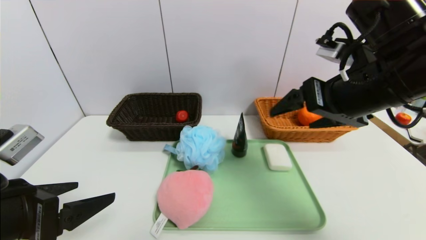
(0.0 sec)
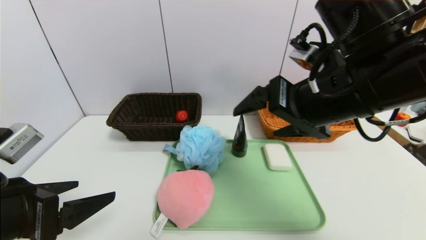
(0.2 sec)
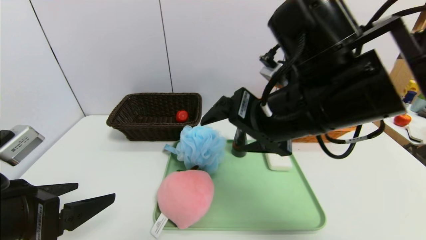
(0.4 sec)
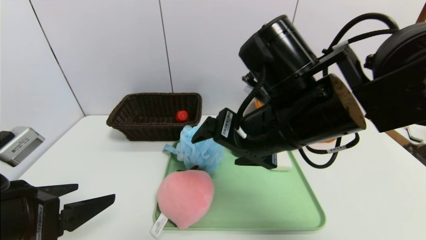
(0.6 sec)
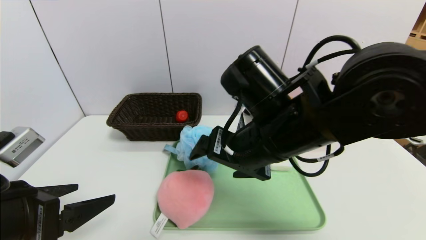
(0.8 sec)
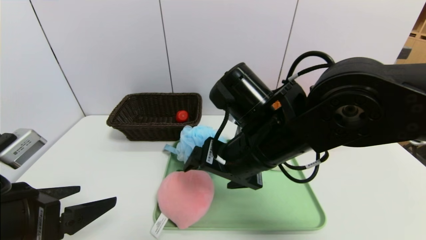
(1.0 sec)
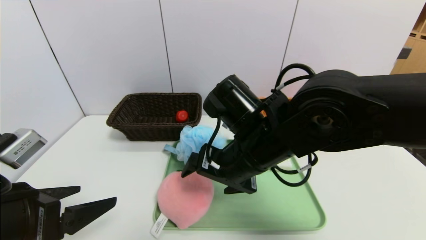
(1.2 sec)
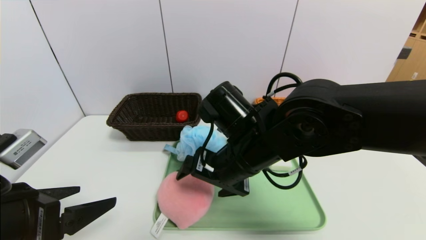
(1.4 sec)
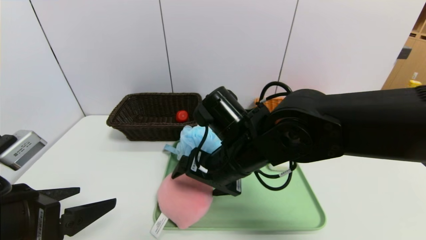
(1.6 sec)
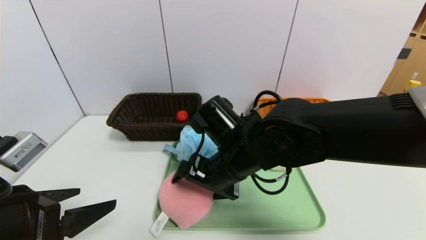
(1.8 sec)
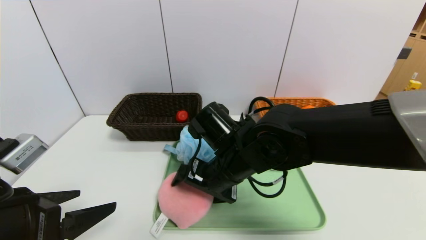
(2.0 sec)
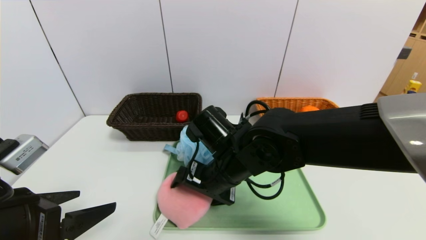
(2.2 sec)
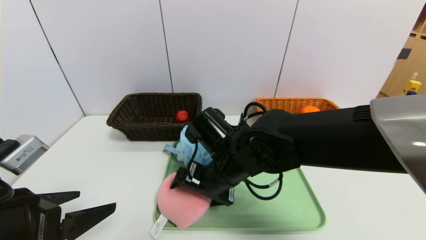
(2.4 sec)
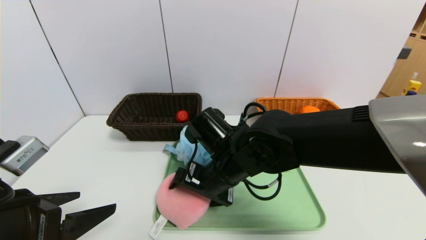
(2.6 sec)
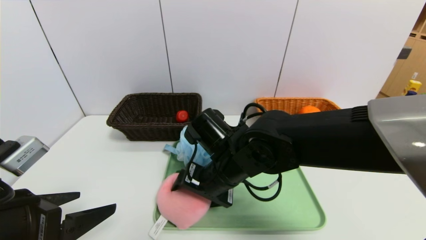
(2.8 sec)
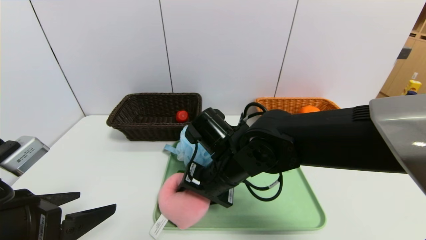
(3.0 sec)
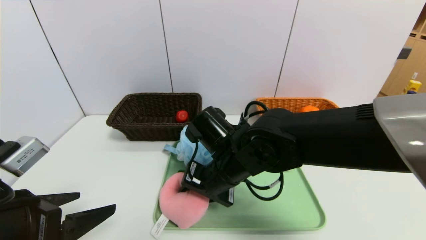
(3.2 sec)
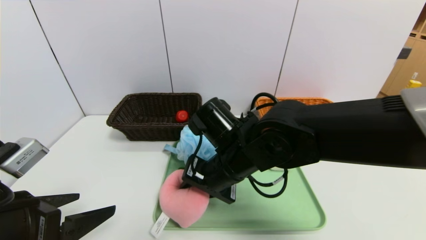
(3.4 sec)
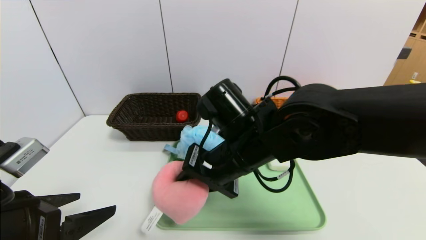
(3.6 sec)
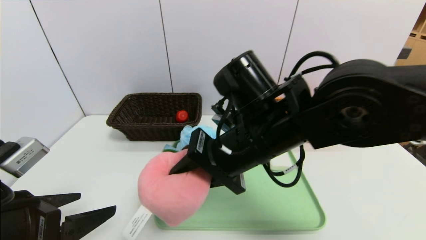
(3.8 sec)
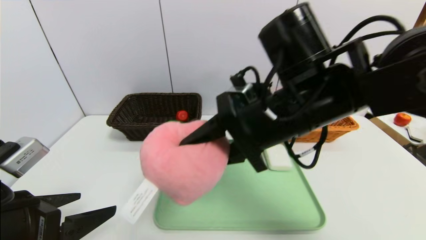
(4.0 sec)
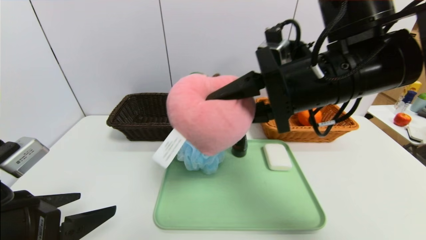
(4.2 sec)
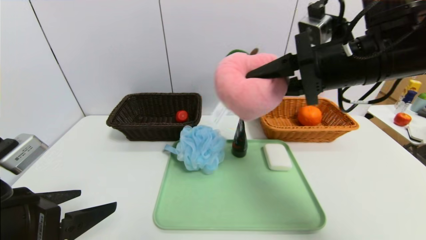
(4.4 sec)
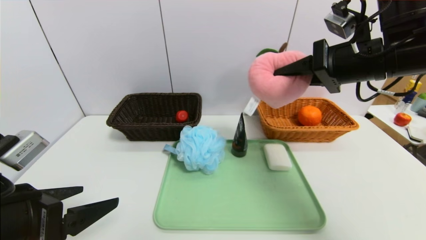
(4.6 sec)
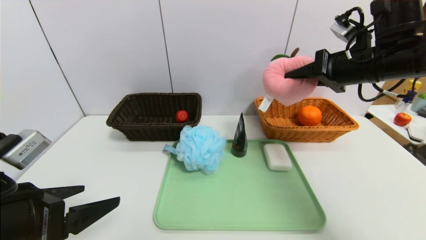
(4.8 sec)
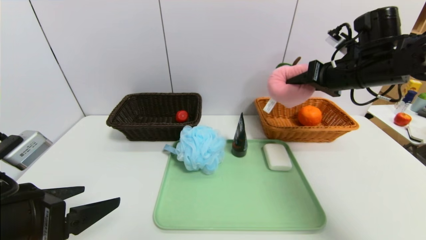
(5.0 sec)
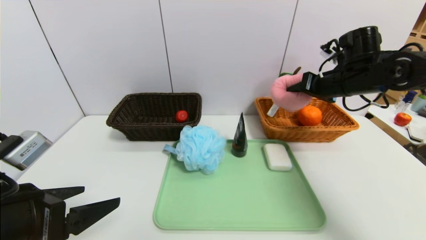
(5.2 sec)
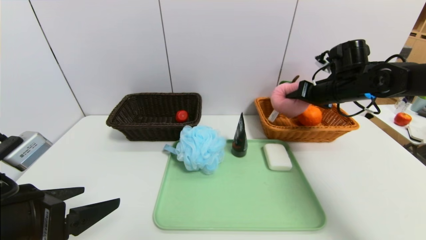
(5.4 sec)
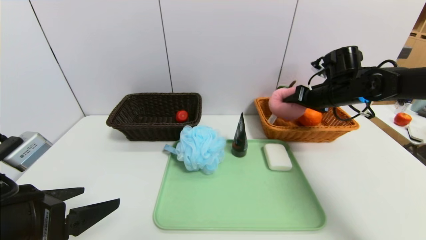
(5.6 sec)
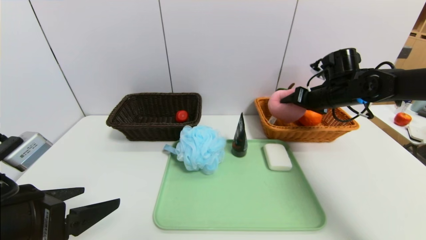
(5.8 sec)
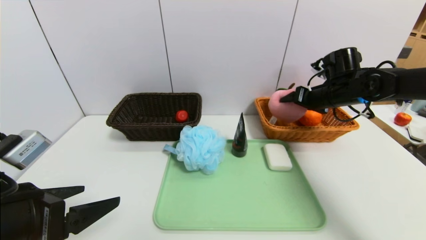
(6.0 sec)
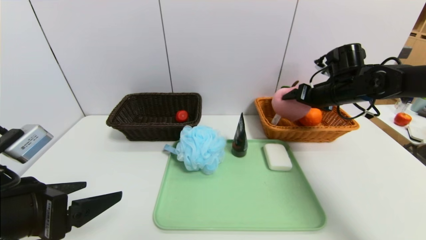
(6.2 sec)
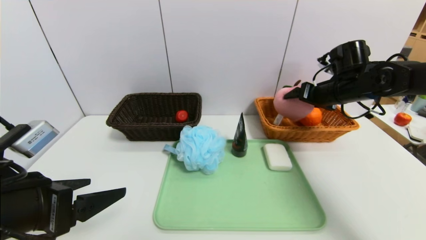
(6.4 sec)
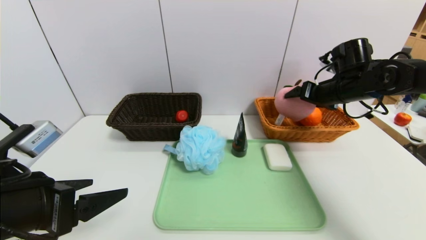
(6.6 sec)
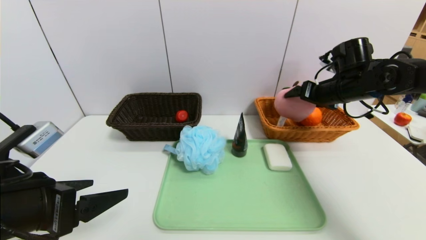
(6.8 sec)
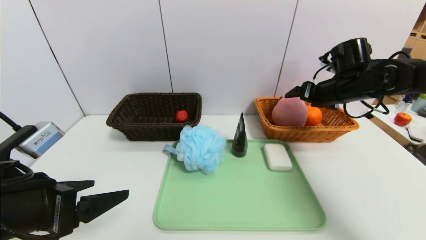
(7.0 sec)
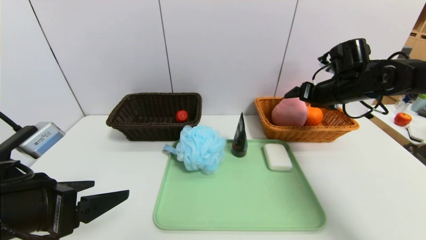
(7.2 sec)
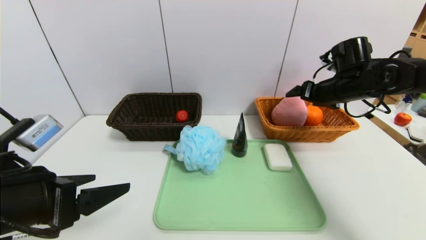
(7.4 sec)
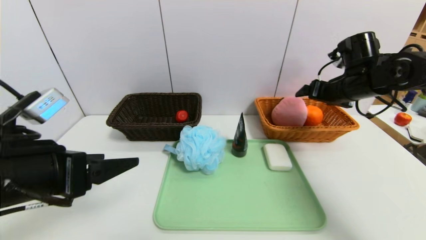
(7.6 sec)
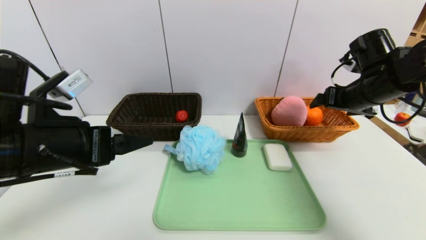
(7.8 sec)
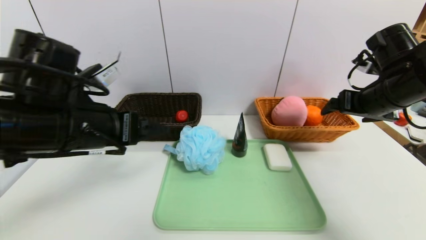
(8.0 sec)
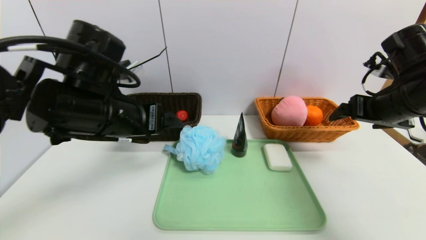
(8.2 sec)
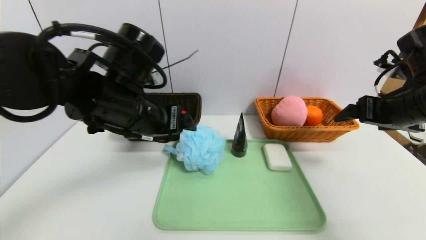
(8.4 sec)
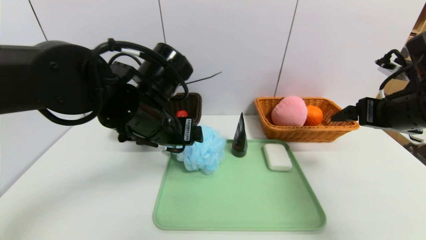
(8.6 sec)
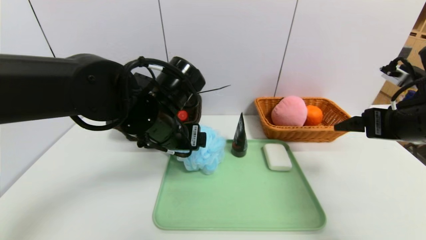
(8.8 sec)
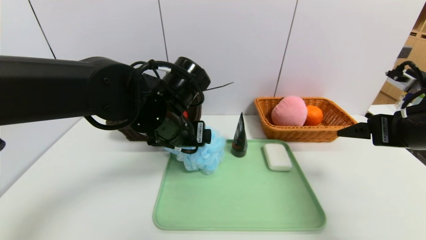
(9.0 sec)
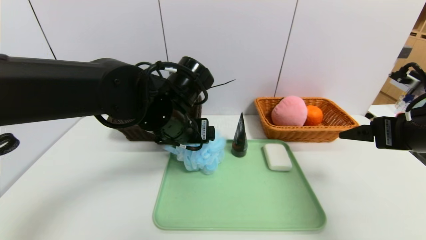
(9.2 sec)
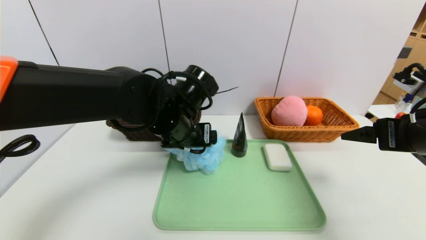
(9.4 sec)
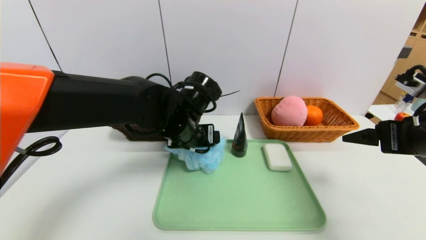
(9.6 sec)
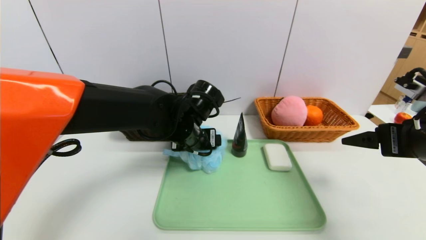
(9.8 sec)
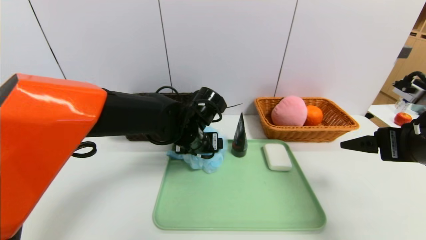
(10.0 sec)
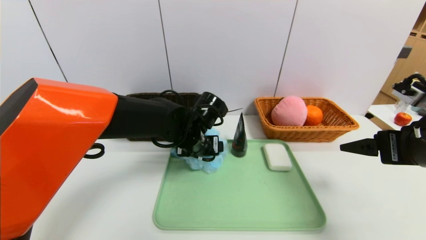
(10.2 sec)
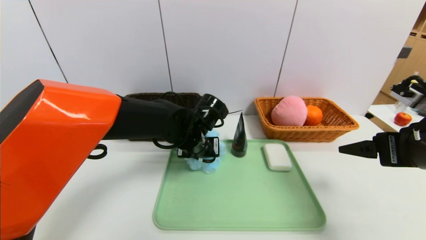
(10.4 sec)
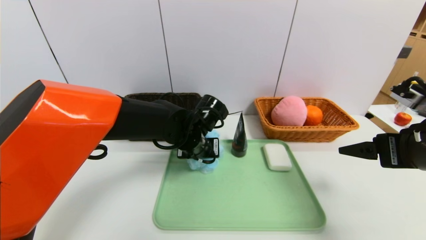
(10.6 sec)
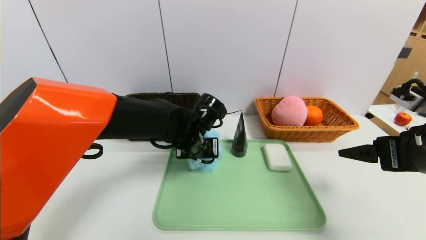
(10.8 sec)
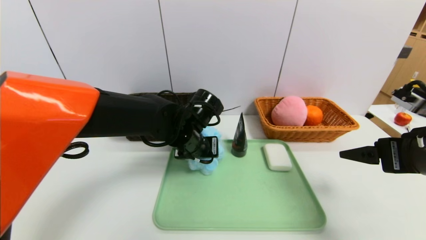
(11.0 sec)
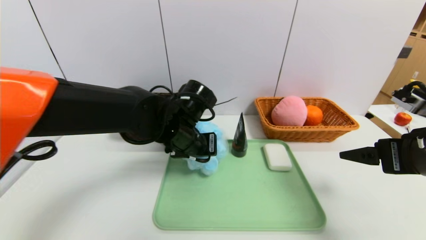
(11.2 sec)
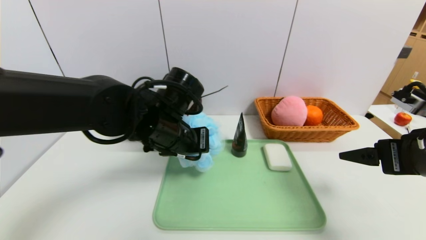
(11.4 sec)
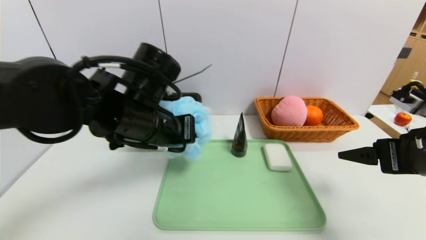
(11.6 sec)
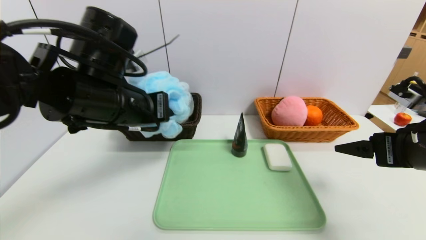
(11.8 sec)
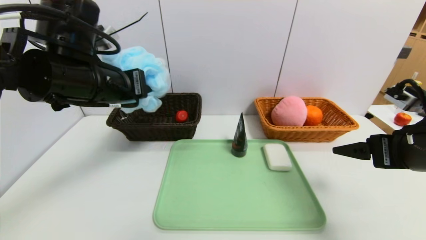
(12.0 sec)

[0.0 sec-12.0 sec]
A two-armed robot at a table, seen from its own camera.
Task of the whole recording: place the food in the right basket with the right gripper, and place the non food items in the left basket with the left gripper.
Step, 0.0 sec to 7.0 sec: Grasp the peach and put it in the right basket.
0.0 sec to 1.6 sec: The right gripper goes some 20 cm to the left and downward.
1.6 sec to 3.0 sec: The right gripper closes up.
3.0 sec to 4.4 sec: The right gripper shifts some 25 cm to the right and upward.
4.4 sec to 6.0 sec: The right gripper shifts about 20 cm forward, downward and to the right, and opens up.
6.0 sec to 7.6 sec: The left gripper shifts by roughly 5 cm.
7.6 sec to 9.0 sec: The right gripper heads backward, covering roughly 15 cm; the left gripper goes some 20 cm to the right and forward.
9.0 sec to 10.4 sec: The left gripper travels downward and forward by roughly 10 cm, and closes up.
10.4 sec to 12.0 sec: The left gripper goes some 25 cm upward, to the left and backward, and closes its fingers.

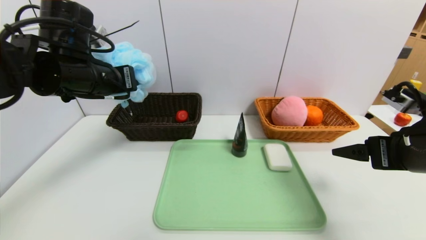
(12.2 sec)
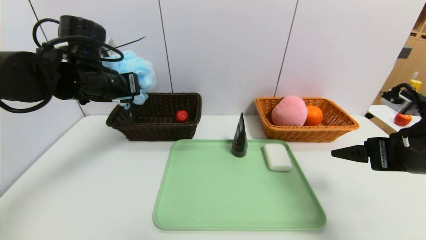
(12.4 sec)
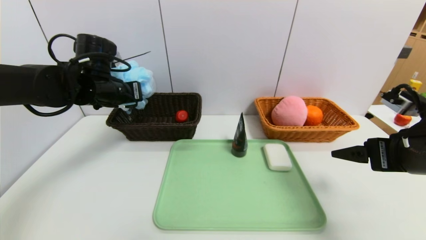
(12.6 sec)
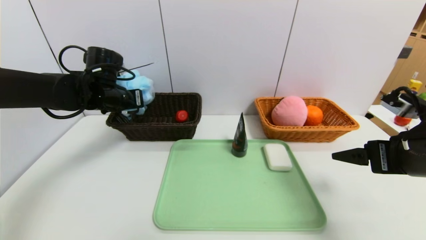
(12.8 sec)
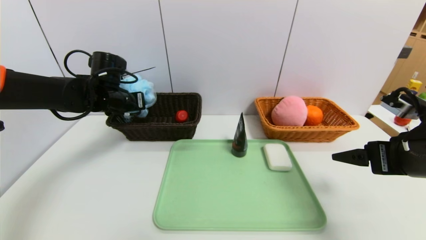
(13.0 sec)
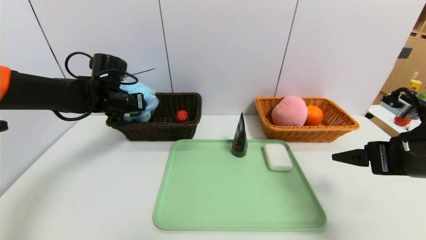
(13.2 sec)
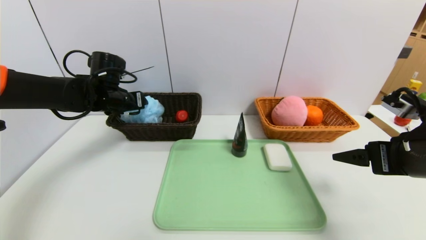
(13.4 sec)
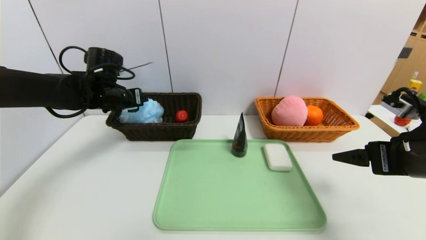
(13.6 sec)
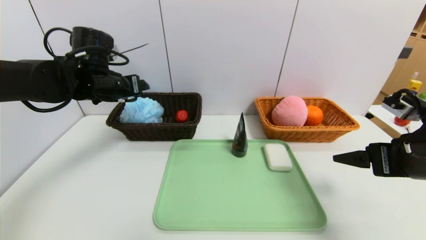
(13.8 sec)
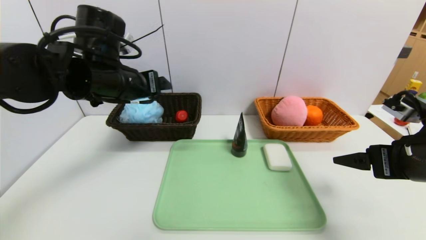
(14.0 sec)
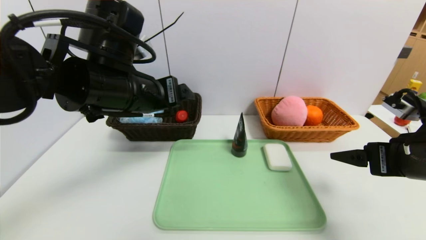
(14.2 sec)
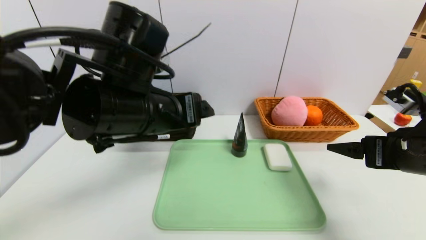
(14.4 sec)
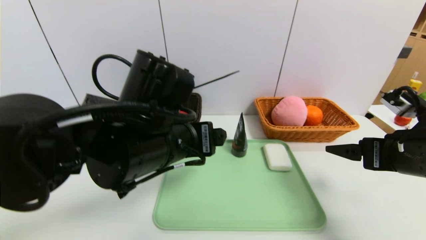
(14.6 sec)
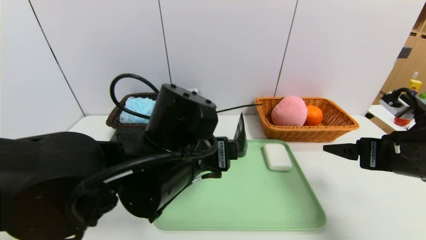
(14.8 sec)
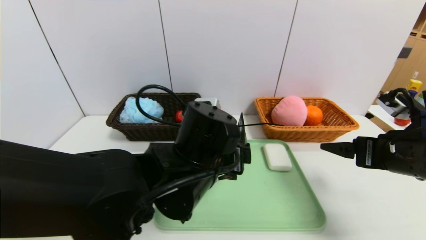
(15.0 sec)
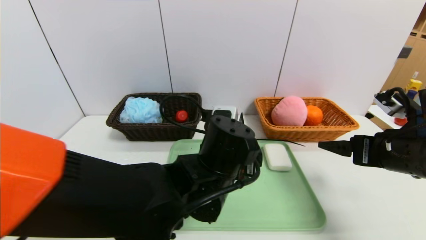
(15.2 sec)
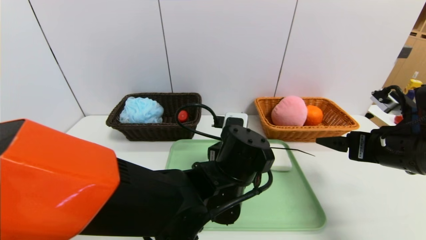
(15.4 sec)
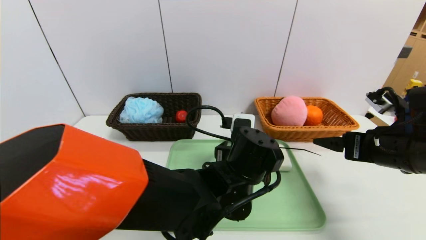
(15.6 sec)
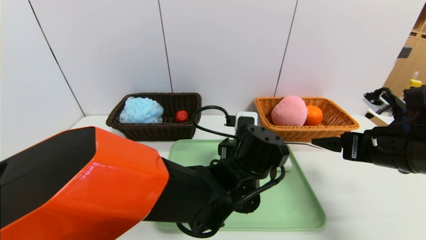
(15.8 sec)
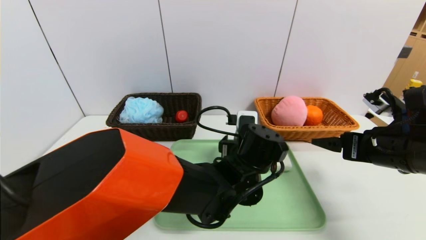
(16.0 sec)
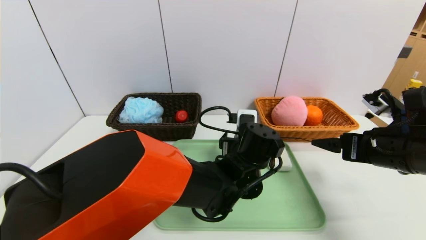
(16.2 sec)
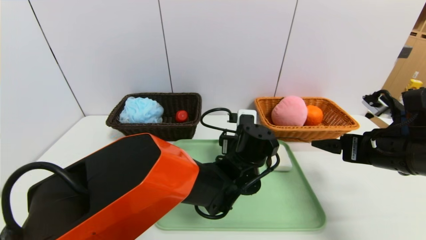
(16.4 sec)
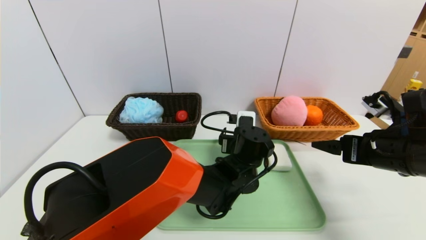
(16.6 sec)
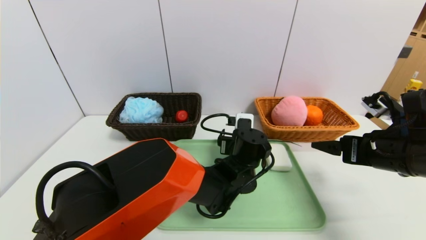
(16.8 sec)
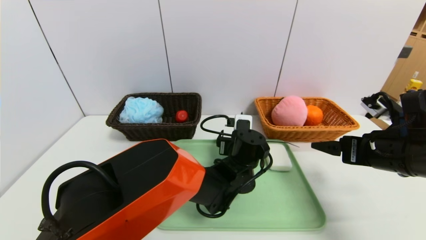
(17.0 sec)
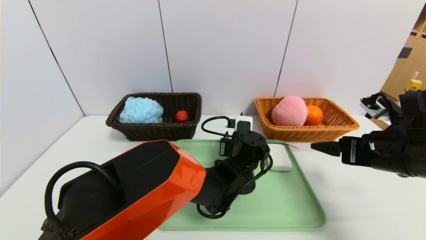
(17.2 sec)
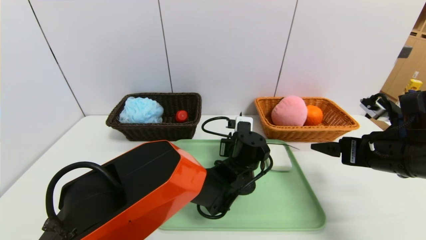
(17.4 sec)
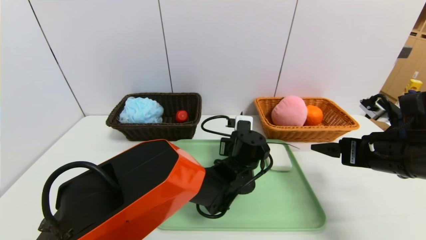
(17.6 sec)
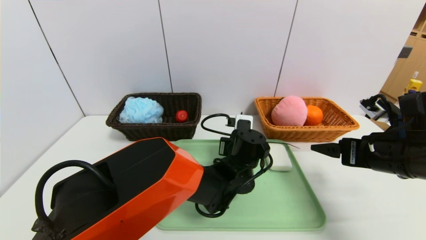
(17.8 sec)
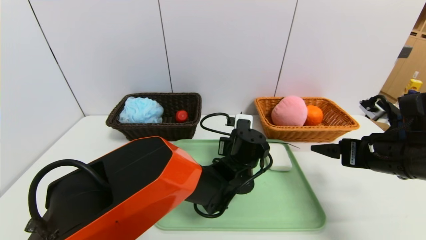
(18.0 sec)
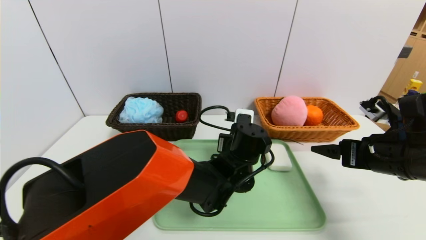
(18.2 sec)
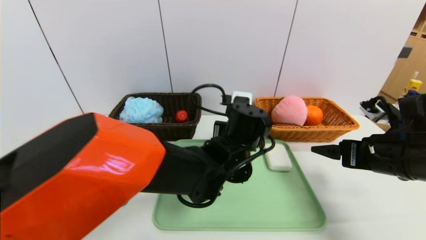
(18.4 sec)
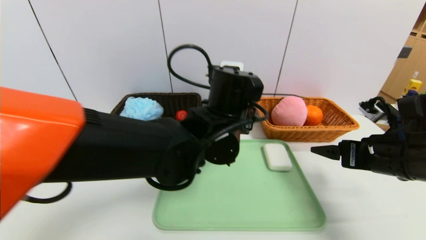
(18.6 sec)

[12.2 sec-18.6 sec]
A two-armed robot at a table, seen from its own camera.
Task of the whole recording: place the food in the right basket with the right gripper, and place the non food items in the left basket with the left gripper.
12.2 sec to 13.8 sec: The left gripper goes some 5 cm forward, and opens.
13.8 sec to 15.4 sec: The left gripper is displaced to the right, backward and downward by roughly 30 cm.
15.4 sec to 17.0 sec: The left gripper heads forward and downward, covering about 10 cm.
17.0 sec to 18.6 sec: The left gripper moves upward and to the left, roughly 15 cm, and closes up.
